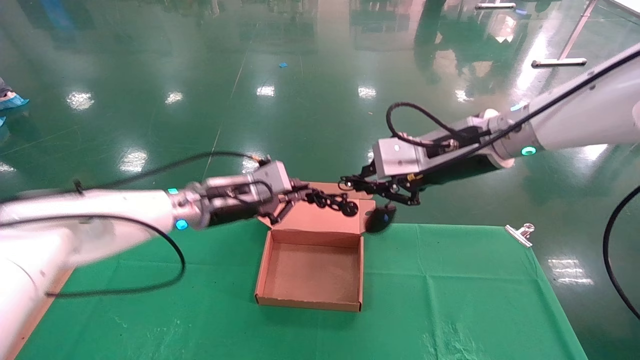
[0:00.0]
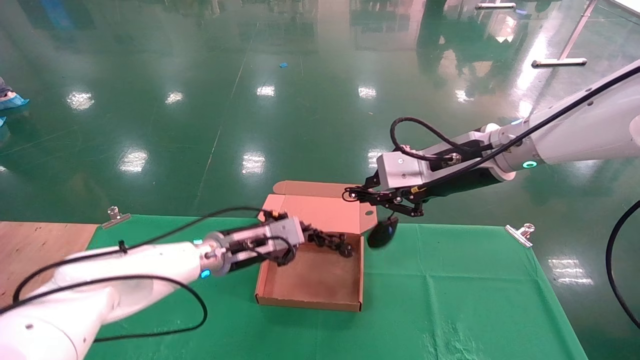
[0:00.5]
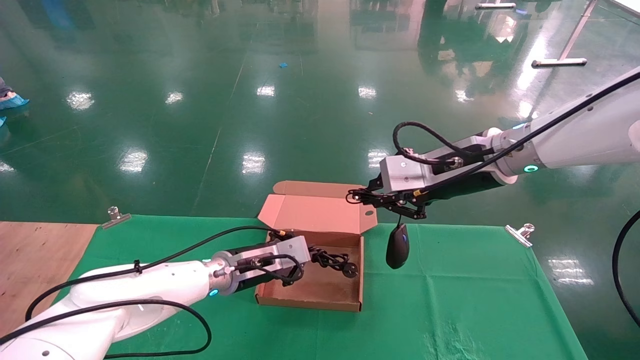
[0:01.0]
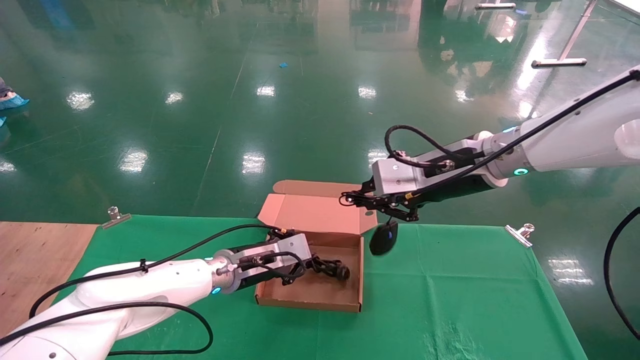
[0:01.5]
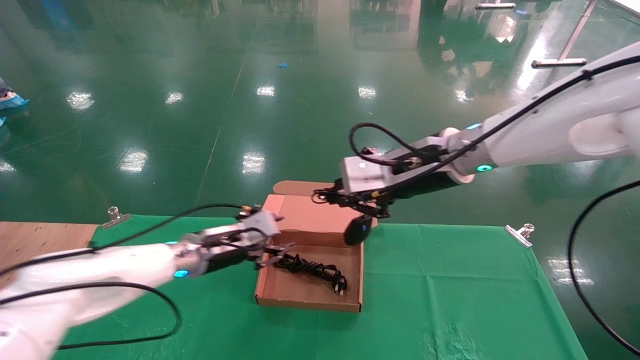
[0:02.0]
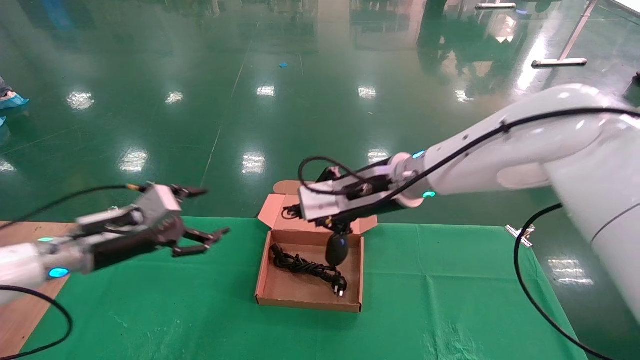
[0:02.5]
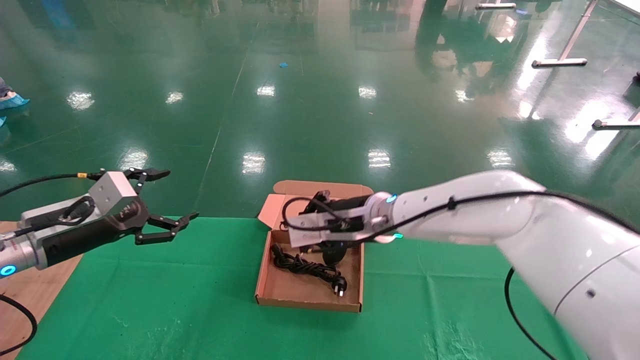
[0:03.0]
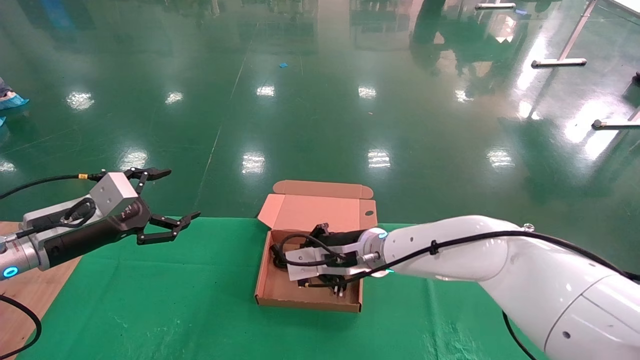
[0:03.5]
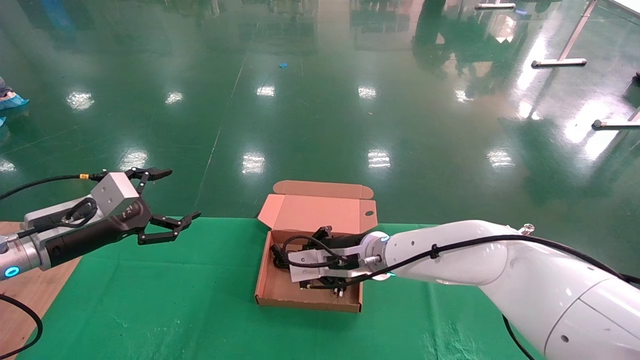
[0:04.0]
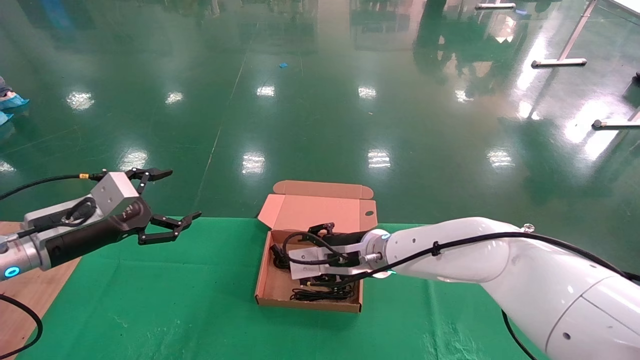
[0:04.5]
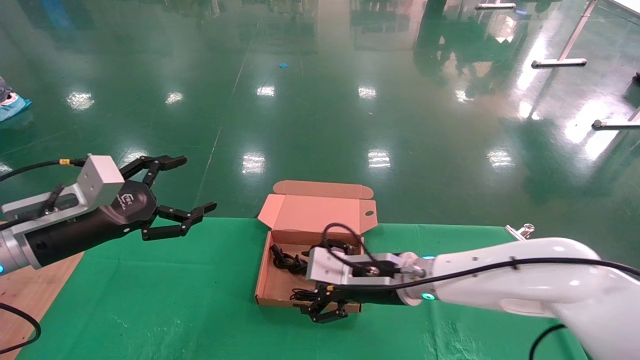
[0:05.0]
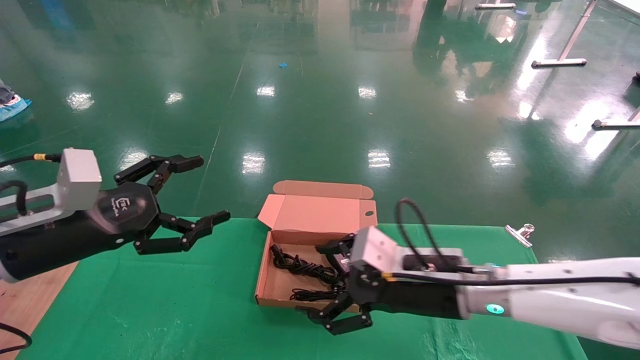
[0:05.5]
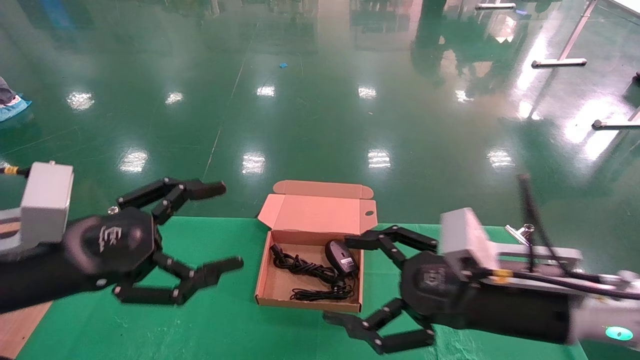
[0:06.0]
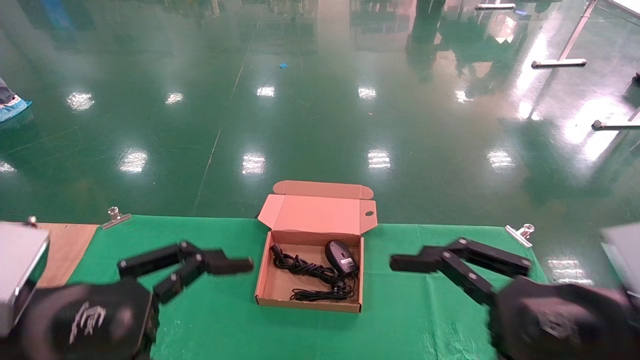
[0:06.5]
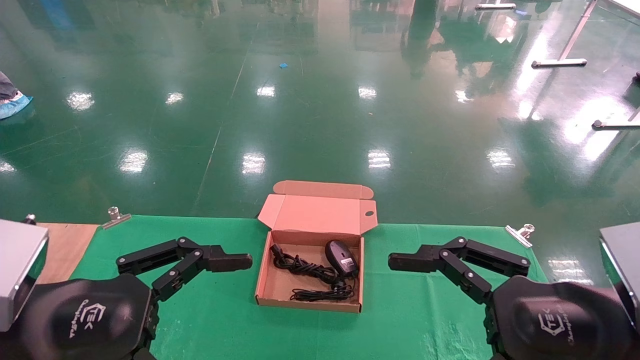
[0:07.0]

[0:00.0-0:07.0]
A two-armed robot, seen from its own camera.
Step, 0:00.0 to 0:03.5: Place the mouse and power cord into the box.
0:00.0 to 0:02.0: The right gripper moves approximately 5 cm; the left gripper heads downward, covering roughly 10 cm.
0:02.0 to 0:03.5: The right gripper shifts some 20 cm downward and to the left, while the left gripper goes about 20 cm to the left and backward, and opens up.
0:03.5 to 0:05.0: The left gripper ends up approximately 5 cm from where it was. The right gripper moves roughly 5 cm, and opens up.
0:05.0 to 0:07.0: The two grippers go about 25 cm backward and to the right.
